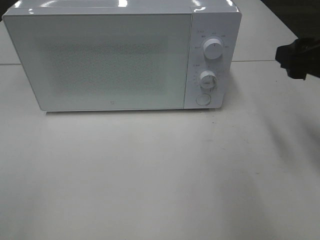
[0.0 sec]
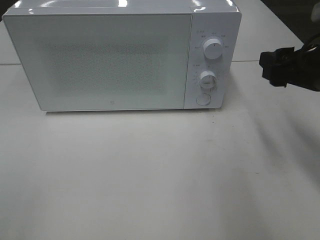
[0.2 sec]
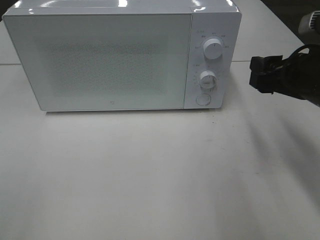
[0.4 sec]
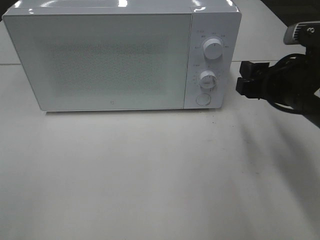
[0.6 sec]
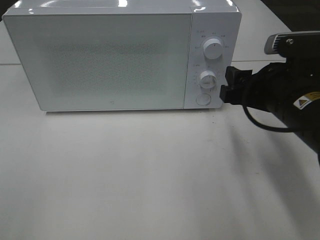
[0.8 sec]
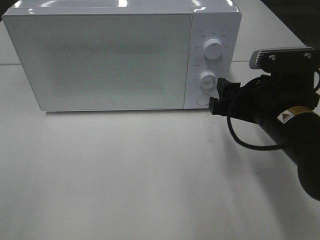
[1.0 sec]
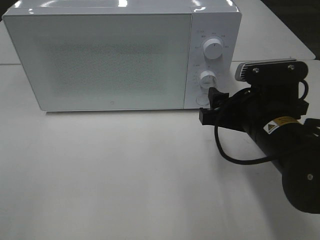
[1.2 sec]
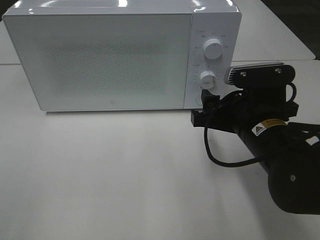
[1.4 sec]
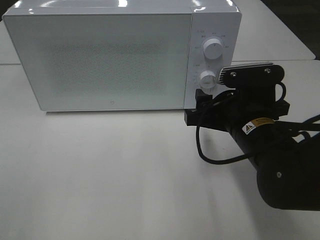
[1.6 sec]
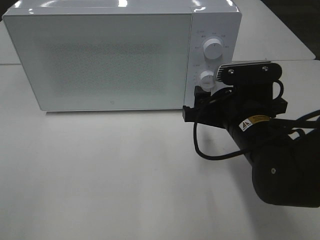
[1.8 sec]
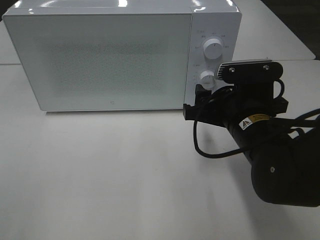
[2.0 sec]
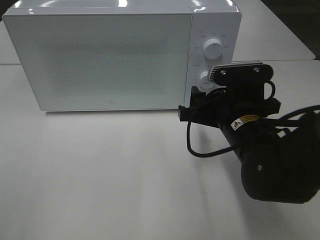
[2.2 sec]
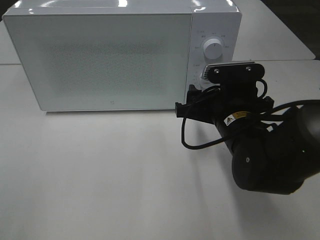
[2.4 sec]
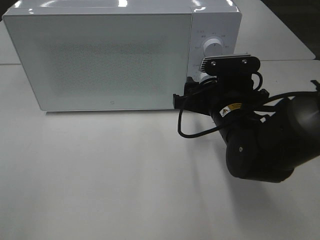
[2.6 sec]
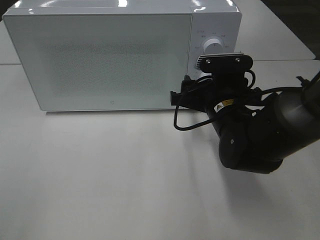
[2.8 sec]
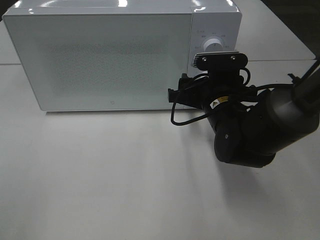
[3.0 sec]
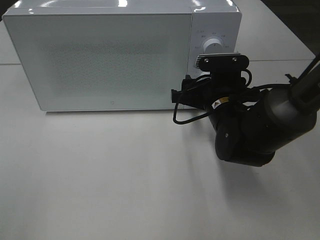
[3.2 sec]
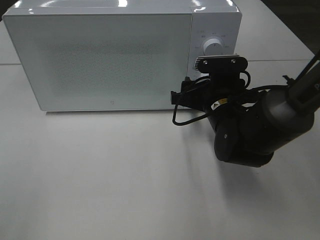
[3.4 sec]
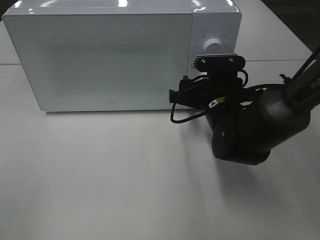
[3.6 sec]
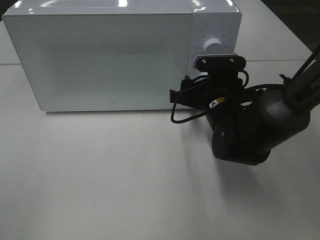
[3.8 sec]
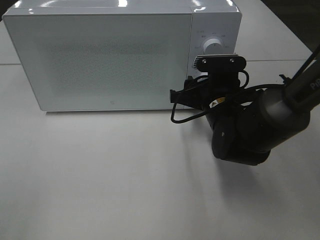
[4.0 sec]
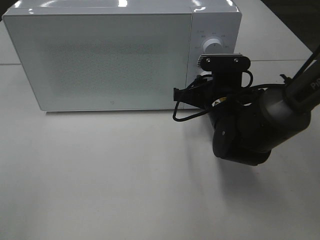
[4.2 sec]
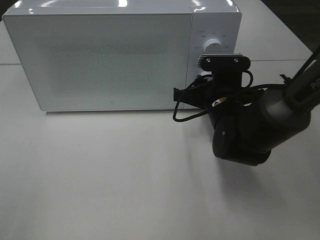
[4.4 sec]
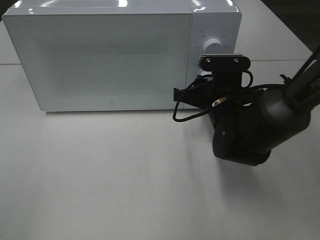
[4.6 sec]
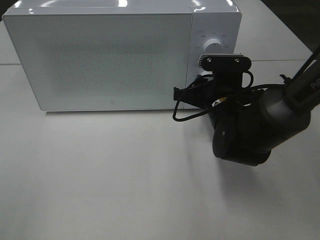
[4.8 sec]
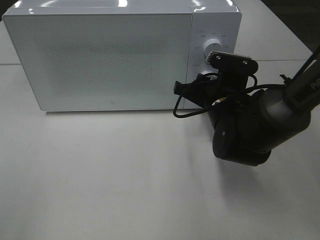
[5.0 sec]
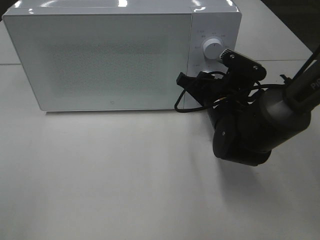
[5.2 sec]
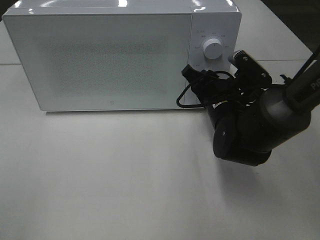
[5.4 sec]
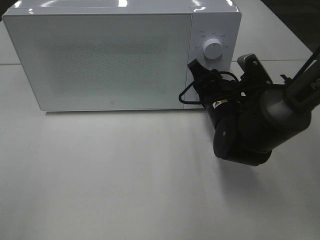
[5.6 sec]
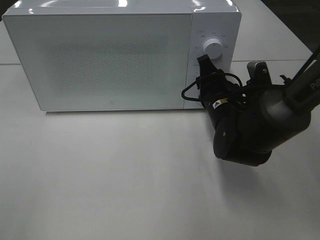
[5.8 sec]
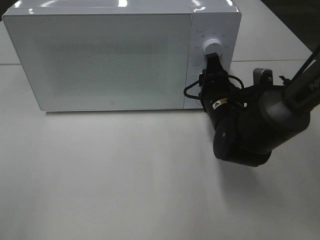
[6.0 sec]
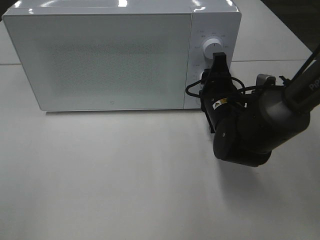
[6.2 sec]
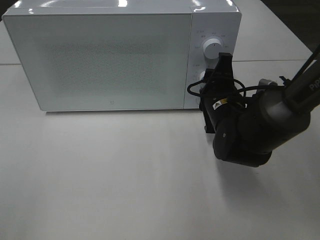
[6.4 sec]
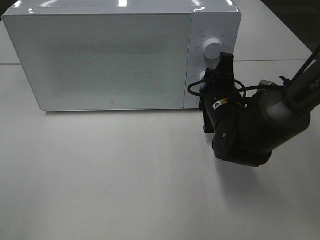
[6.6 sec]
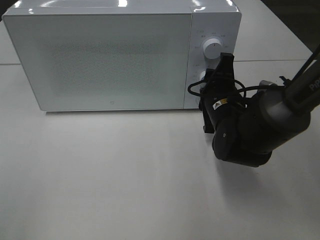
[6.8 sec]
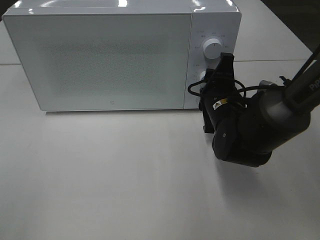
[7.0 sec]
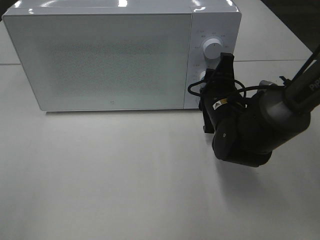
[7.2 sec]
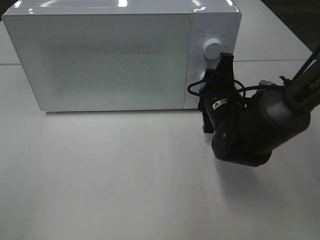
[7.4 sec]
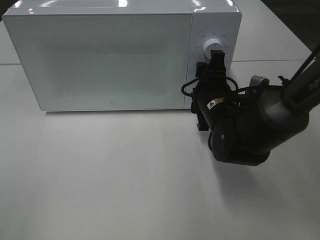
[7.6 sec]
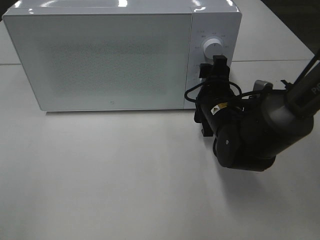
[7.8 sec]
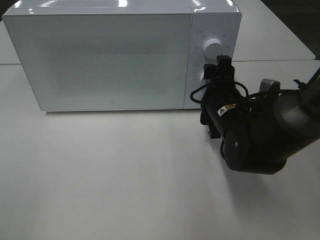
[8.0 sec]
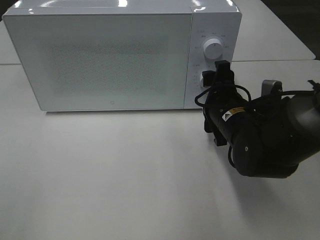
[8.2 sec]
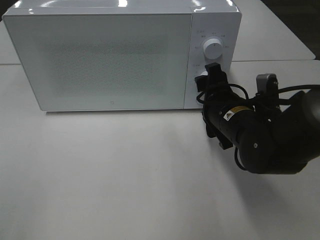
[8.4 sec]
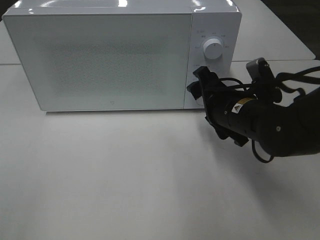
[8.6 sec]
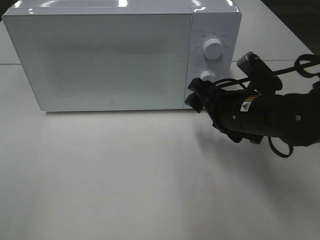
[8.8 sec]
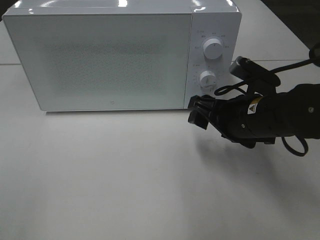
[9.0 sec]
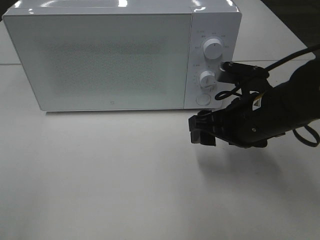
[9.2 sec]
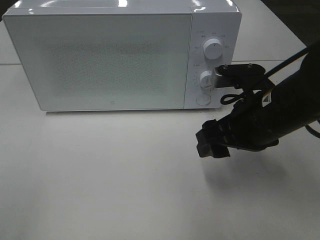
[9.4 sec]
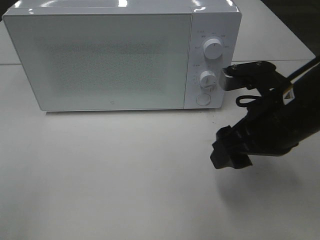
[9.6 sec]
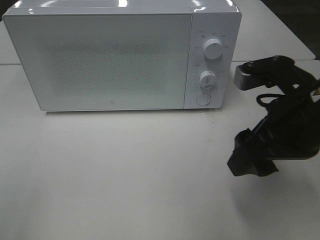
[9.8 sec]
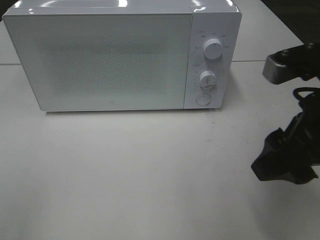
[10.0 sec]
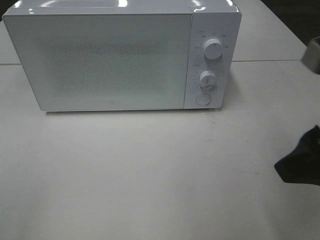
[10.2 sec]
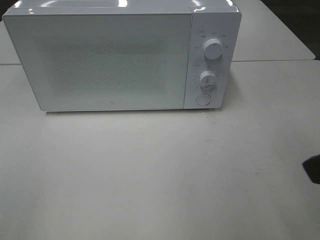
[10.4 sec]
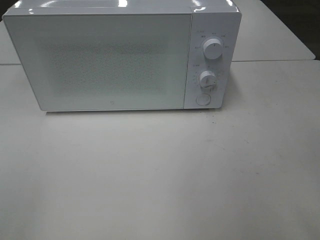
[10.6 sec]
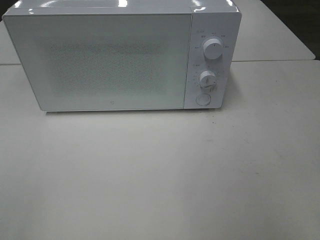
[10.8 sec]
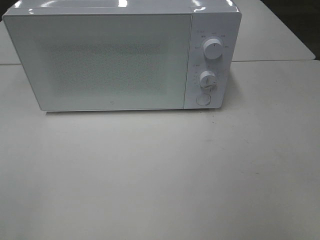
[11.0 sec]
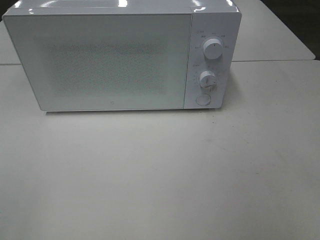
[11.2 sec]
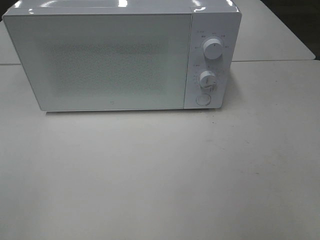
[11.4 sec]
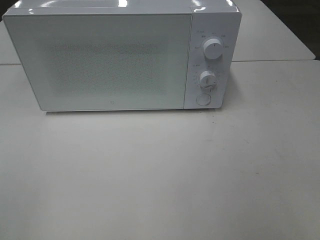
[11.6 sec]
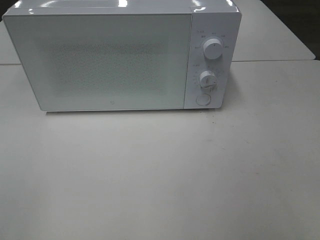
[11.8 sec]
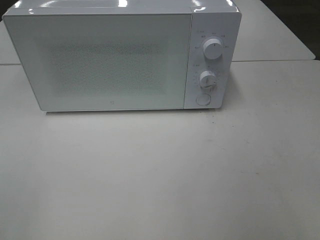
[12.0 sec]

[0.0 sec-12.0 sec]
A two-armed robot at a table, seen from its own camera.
Task of the whole recording: Heat Sandwich.
Step, 0.0 sec to 7.6 sec: Right hand: twist timer button.
0.0 sec to 1.6 sec: The right gripper moves to the left and downward, some 15 cm.
1.6 sec to 3.0 sec: The right gripper travels forward by approximately 5 cm.
3.0 sec to 4.4 sec: The grippers stay close to where they were, moving slightly.
6.0 sec to 7.6 sec: The grippers move only a little.
7.6 sec to 9.0 sec: The right gripper goes approximately 5 cm backward.
9.0 sec to 10.4 sec: The right gripper shifts some 25 cm backward, upward and to the right.
10.4 sec to 12.0 sec: The right gripper heads backward and to the right, covering roughly 10 cm.

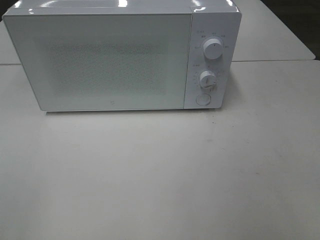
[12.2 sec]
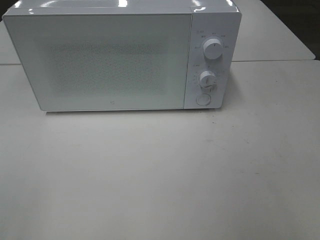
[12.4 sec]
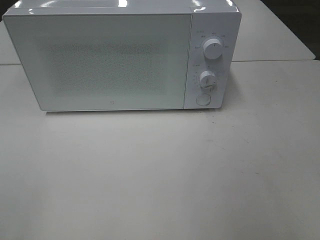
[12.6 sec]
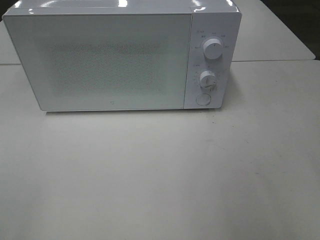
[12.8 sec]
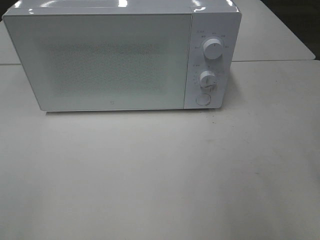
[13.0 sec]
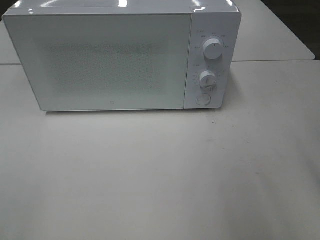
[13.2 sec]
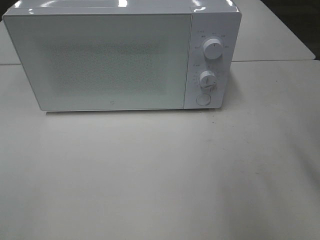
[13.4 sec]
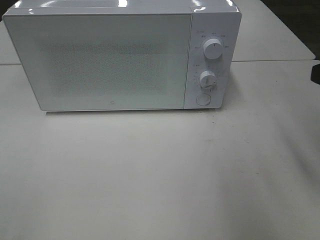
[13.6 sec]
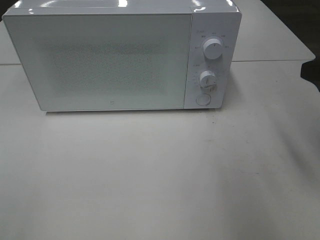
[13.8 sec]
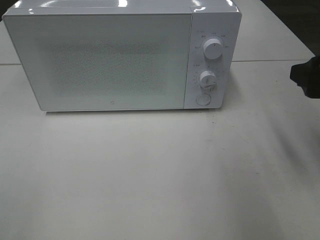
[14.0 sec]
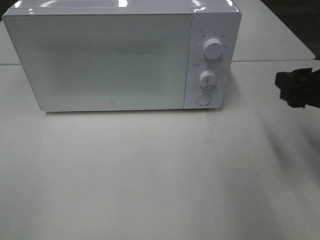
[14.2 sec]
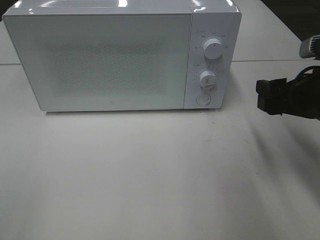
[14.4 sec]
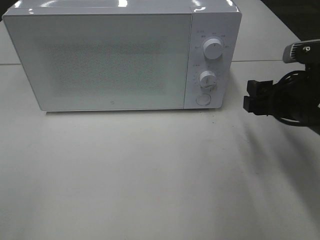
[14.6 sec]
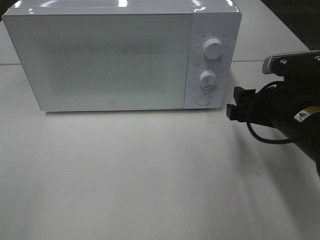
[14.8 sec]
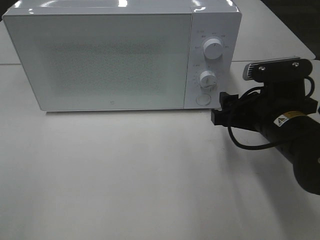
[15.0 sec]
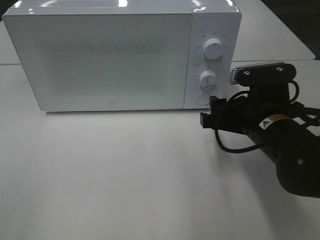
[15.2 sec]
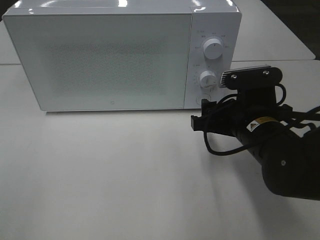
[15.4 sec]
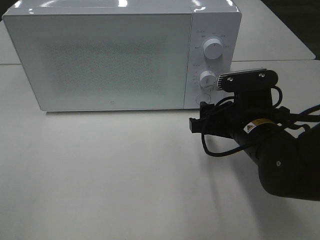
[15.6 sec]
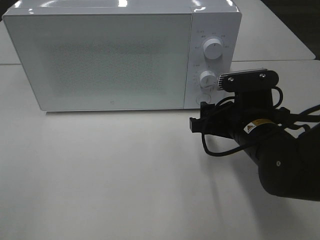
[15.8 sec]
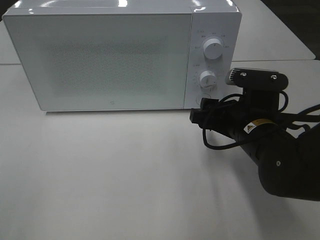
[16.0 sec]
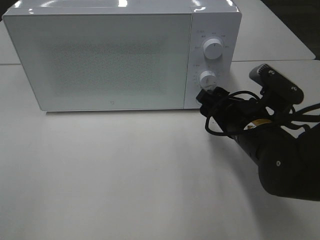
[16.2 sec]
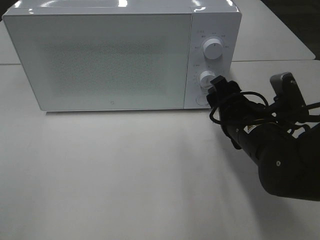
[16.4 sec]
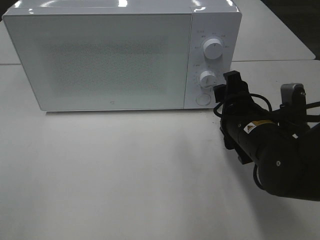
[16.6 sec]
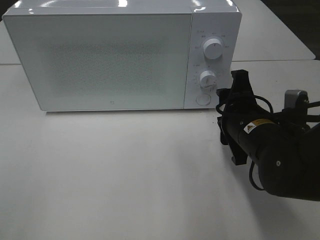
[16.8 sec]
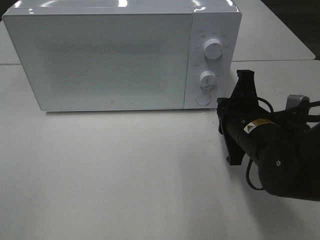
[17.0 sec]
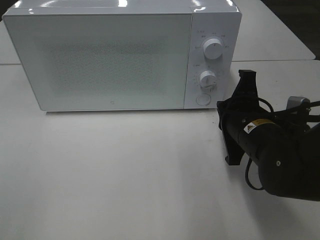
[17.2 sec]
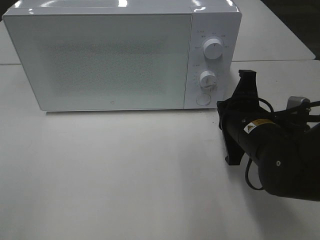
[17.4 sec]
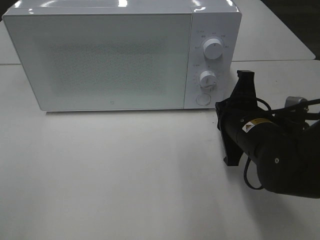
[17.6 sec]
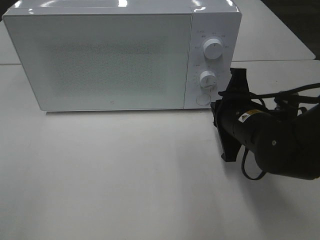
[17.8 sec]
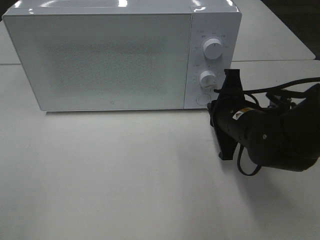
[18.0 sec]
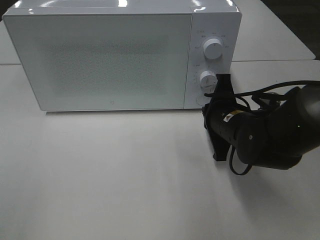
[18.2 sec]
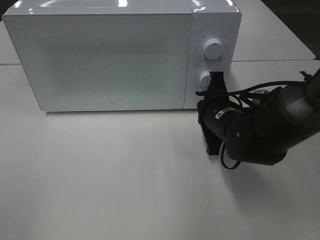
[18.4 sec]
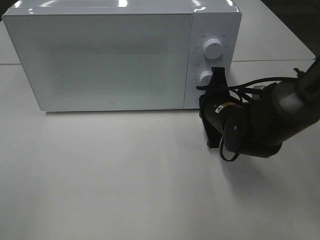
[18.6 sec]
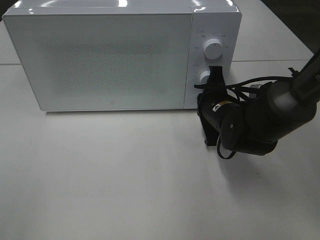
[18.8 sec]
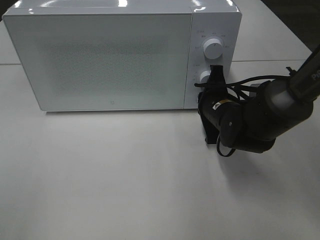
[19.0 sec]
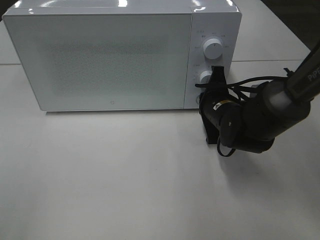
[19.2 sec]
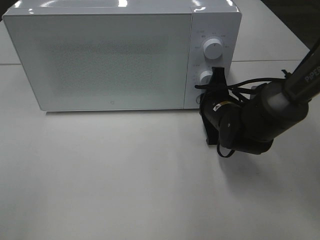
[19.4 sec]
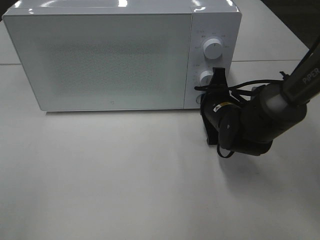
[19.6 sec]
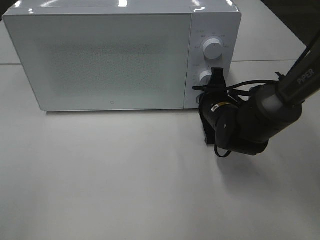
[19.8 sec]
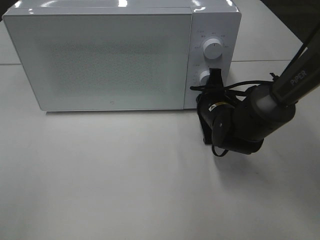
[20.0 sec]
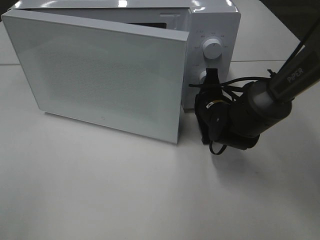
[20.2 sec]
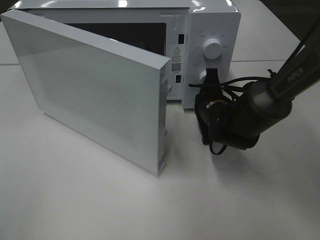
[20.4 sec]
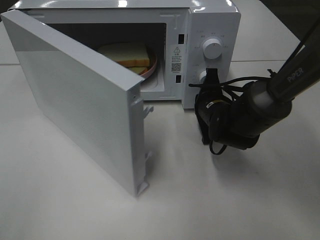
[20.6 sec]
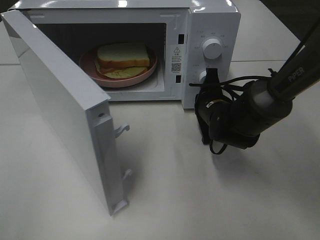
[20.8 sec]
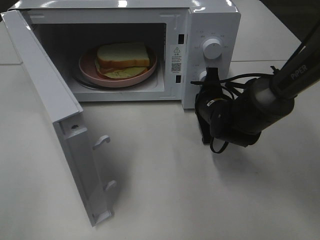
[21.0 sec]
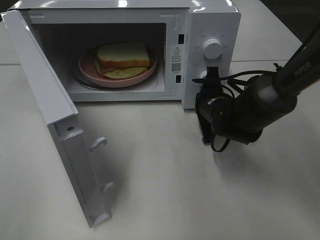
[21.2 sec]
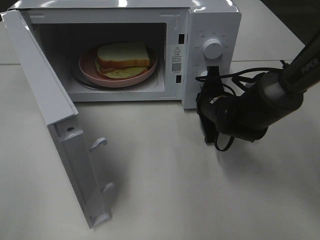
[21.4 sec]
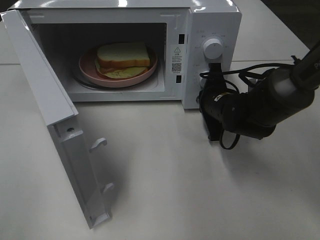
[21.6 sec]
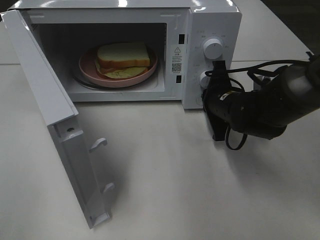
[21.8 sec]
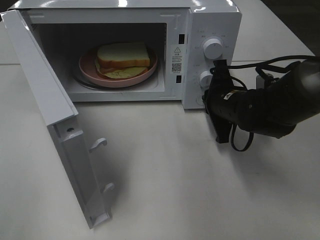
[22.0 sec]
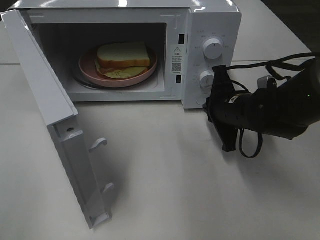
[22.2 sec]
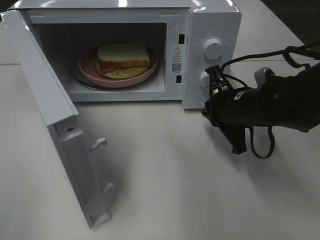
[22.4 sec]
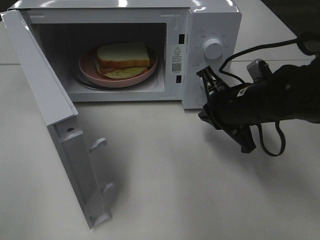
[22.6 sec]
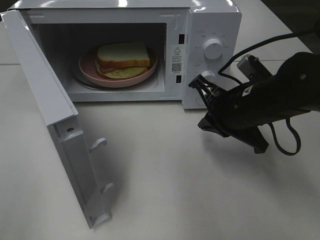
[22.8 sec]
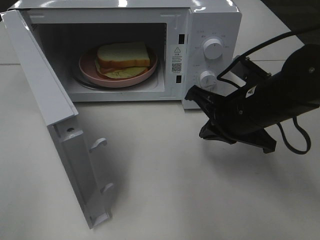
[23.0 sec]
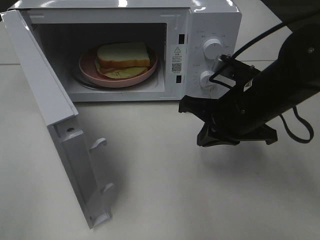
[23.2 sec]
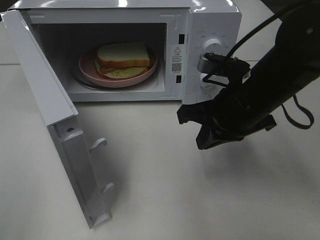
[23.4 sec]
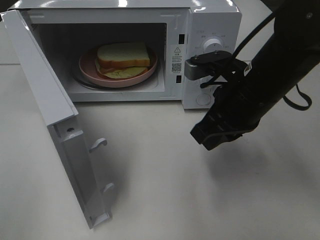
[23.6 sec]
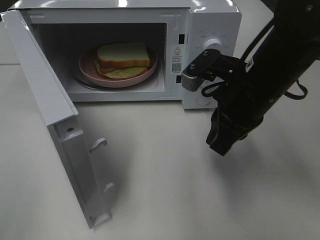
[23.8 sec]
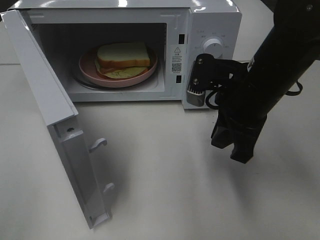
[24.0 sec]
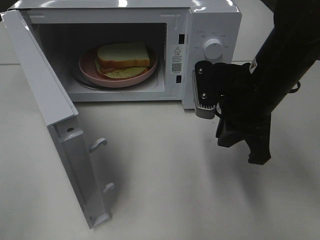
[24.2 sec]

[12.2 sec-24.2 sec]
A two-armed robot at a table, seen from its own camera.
Task of the whole recording: Heat Sandwich.
Step, 12.2 sec to 22.2 sec: Right hand: press the switch.
12.2 sec to 13.8 sec: The right gripper goes approximately 20 cm forward.
13.8 sec to 15.2 sec: The right gripper travels downward and to the left by some 15 cm.
16.6 sec to 18.2 sec: The right gripper ends up roughly 5 cm from where it was, and closes its fingers.
18.2 sec to 19.8 sec: The right gripper goes roughly 5 cm forward.
21.2 sec to 22.6 sec: The right gripper travels backward and upward by some 10 cm.
22.6 sec to 24.2 sec: The right gripper travels upward by about 5 cm.
